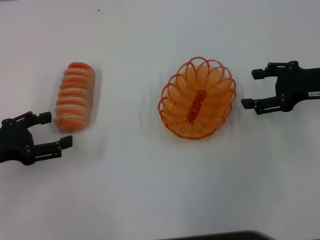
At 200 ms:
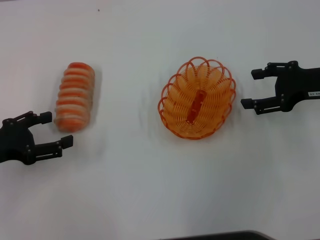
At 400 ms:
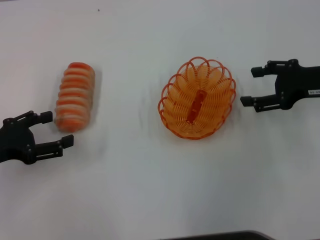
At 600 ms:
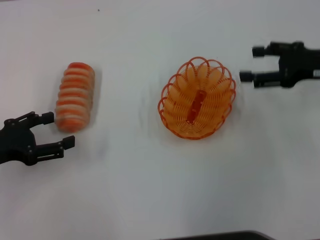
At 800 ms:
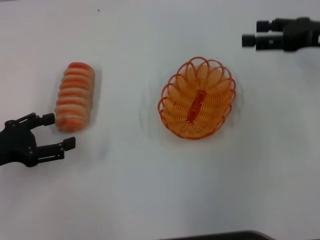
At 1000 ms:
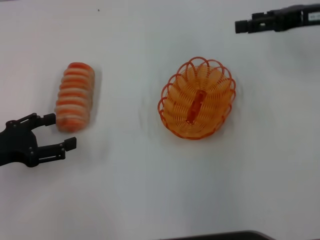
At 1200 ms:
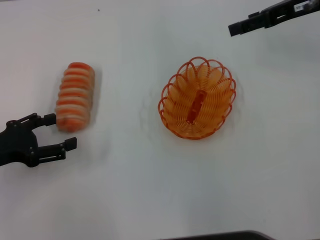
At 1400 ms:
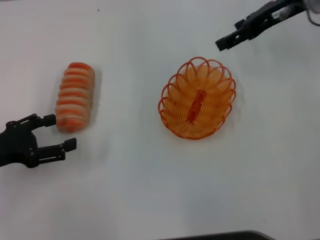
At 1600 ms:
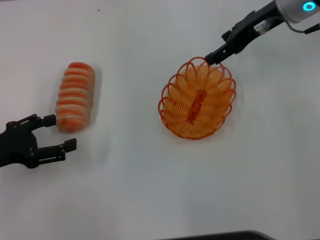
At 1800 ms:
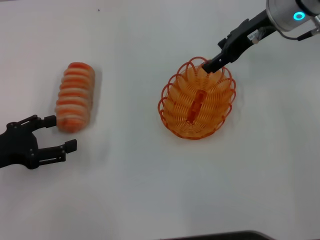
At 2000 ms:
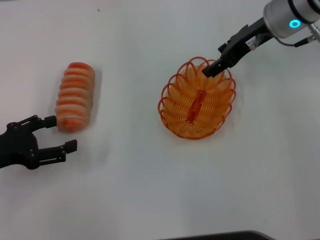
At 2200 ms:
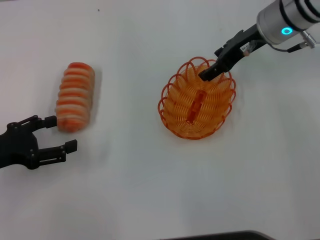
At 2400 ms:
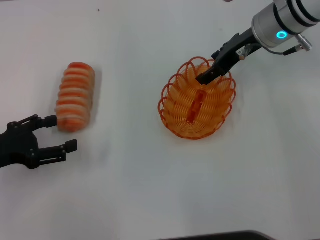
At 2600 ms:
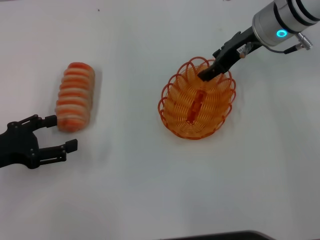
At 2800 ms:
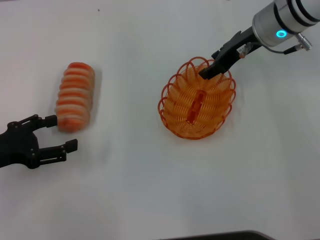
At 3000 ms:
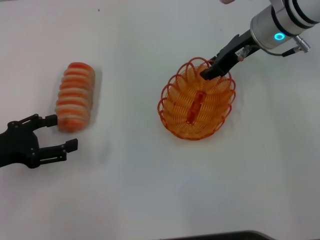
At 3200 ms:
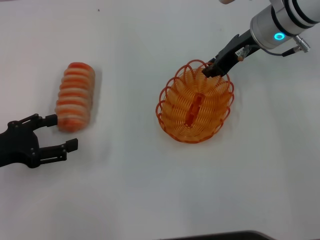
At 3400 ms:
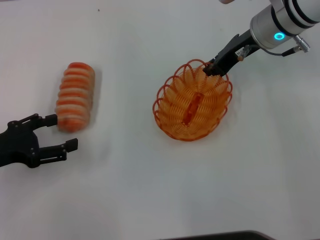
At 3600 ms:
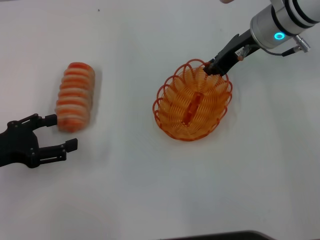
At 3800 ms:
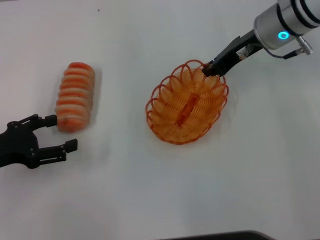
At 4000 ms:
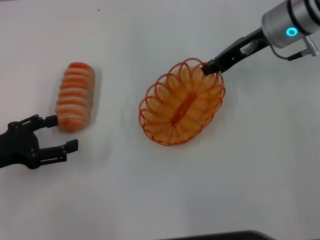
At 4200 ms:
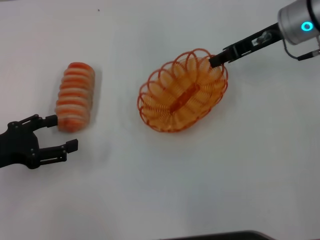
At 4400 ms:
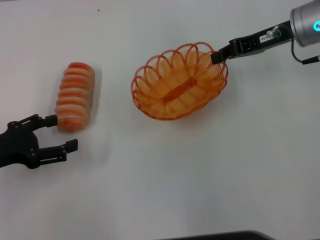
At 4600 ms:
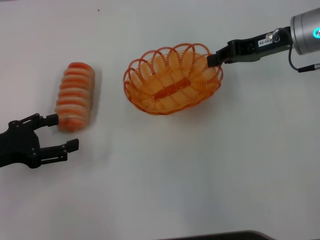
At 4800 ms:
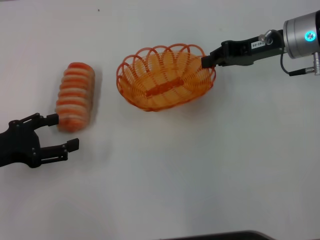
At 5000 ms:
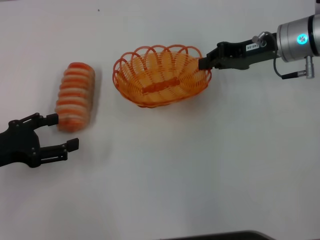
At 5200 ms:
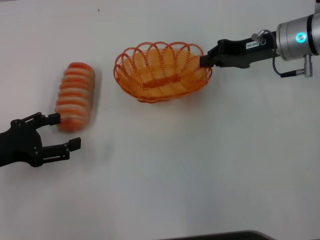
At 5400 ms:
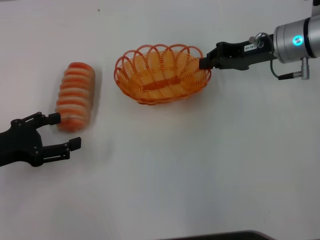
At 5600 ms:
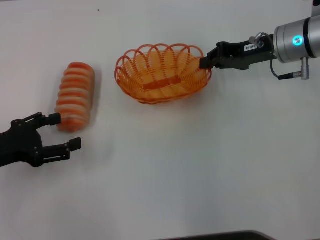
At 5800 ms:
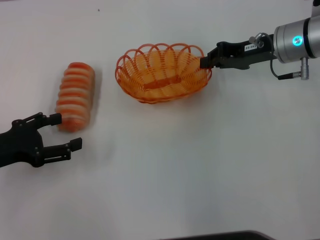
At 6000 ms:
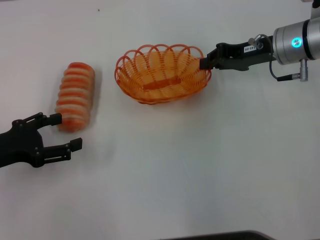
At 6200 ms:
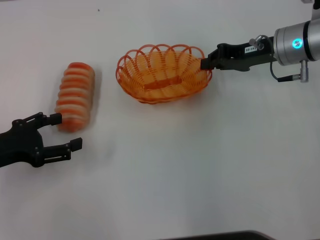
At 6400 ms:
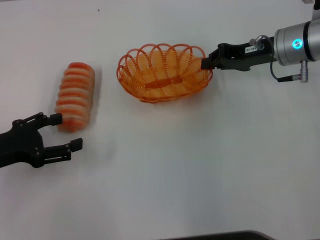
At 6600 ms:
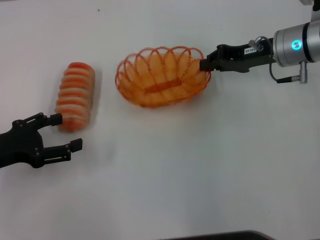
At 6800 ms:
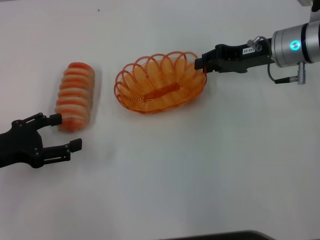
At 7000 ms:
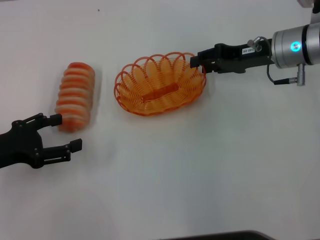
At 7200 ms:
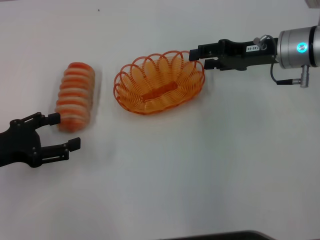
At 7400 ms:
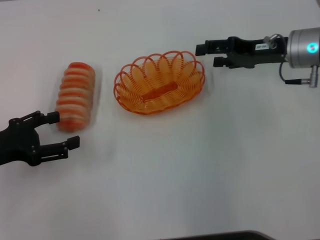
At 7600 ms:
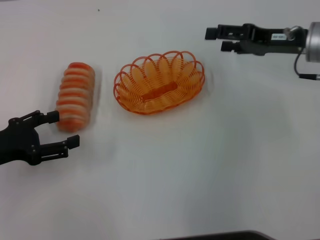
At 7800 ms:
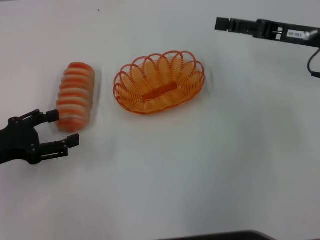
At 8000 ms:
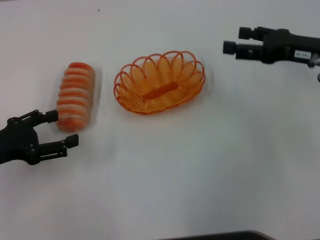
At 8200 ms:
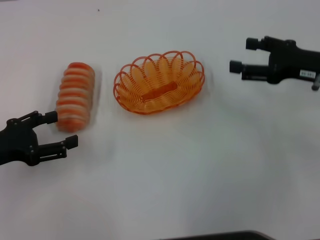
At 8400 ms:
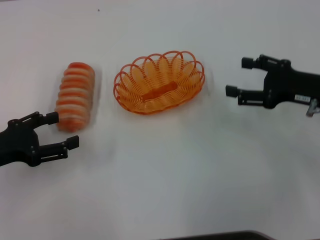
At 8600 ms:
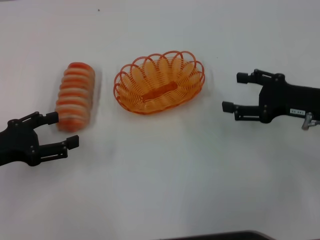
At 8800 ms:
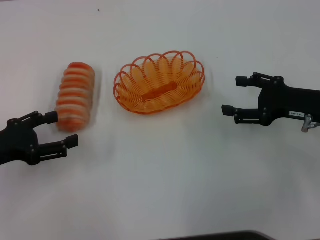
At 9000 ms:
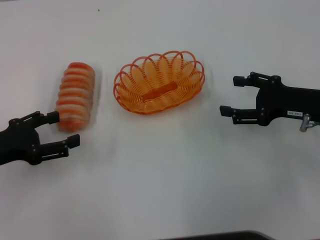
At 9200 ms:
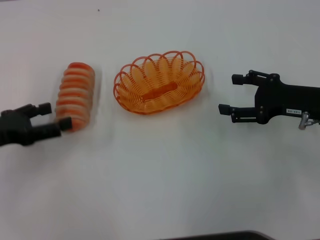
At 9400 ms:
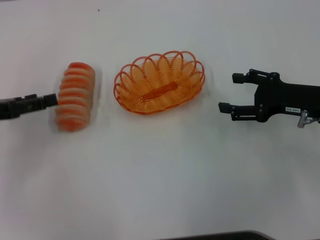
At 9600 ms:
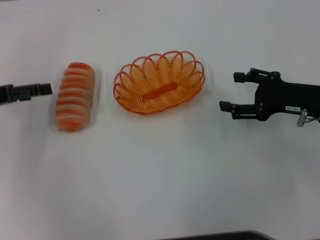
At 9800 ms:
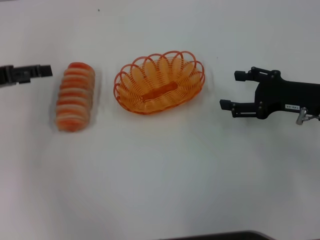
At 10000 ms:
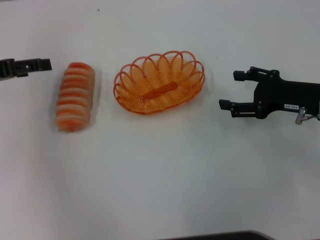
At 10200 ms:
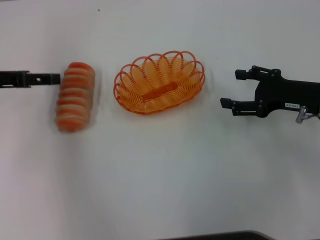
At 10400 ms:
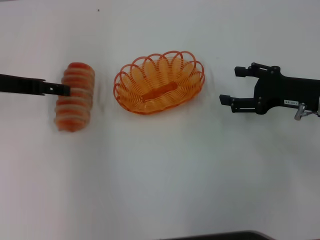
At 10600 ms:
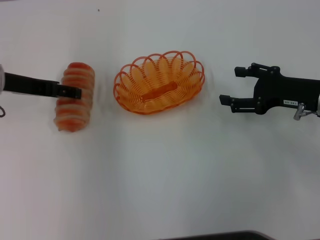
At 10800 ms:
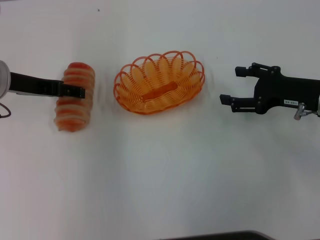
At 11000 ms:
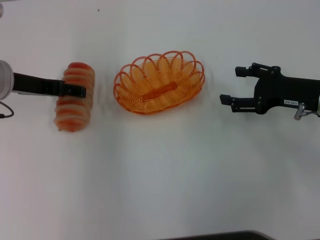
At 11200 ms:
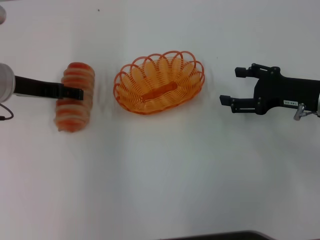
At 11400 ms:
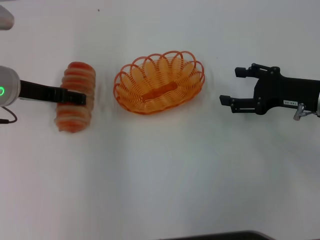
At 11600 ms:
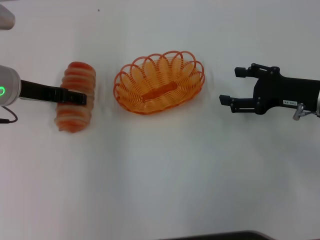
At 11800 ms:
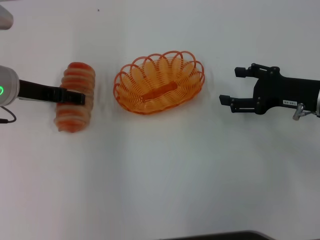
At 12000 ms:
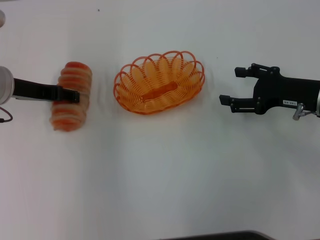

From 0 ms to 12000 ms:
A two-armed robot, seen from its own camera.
Step, from 0 ms to 4200 ms: Pick up the basket with the right gripper.
Step, from 4400 ms to 7400 ms: Place the basket in the center of view with the right gripper.
From 0 ms to 1600 ms: The right gripper shifts approximately 15 cm forward, to the left and upward.
From 1600 ms to 3000 ms: The right gripper ends up some 5 cm from where it was.
From 3000 ms to 4400 ms: The right gripper heads to the right, covering approximately 5 cm, and closes up.
From 4400 ms to 6000 ms: There are only small adjustments of the grippers.
From 6000 ms to 7600 ms: The right gripper opens.
From 7600 ms to 9000 ms: The right gripper heads backward and downward, covering approximately 10 cm.
From 9000 ms to 10400 ms: The left gripper shifts roughly 10 cm forward and upward.
From 10400 ms to 12000 ms: The grippers move only a little.

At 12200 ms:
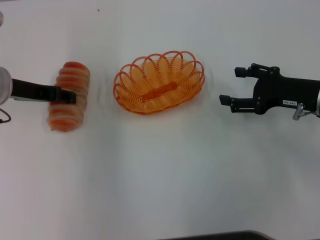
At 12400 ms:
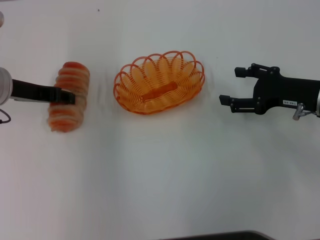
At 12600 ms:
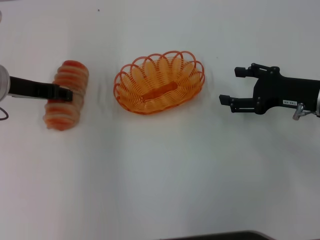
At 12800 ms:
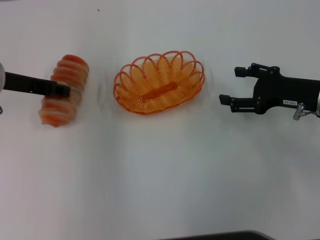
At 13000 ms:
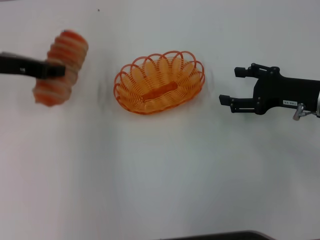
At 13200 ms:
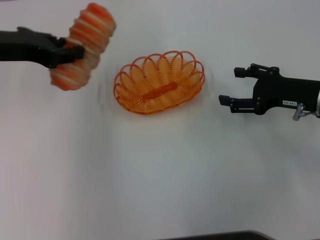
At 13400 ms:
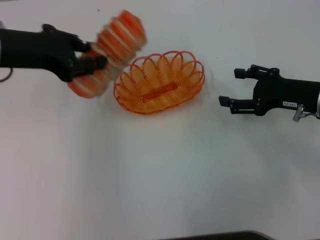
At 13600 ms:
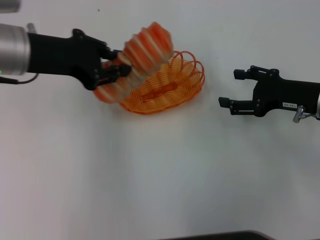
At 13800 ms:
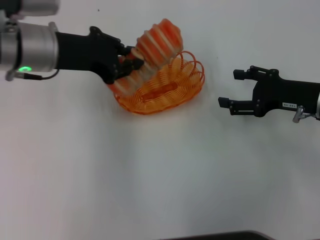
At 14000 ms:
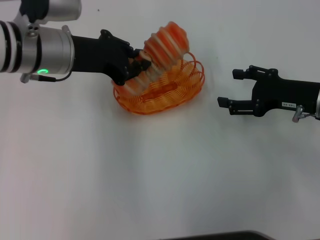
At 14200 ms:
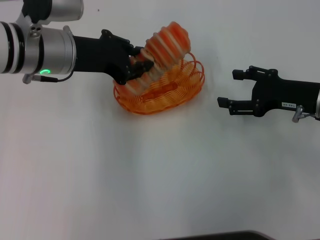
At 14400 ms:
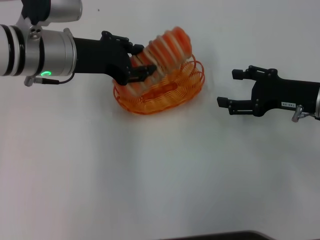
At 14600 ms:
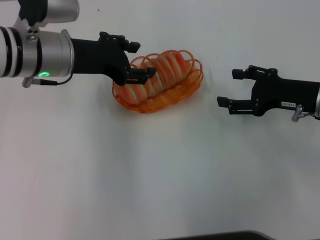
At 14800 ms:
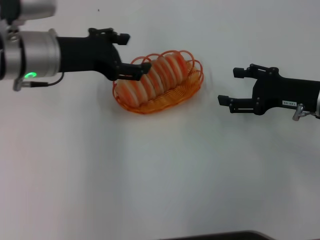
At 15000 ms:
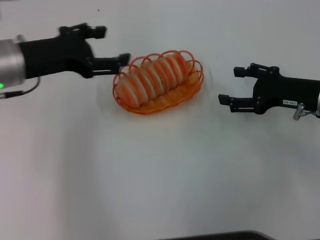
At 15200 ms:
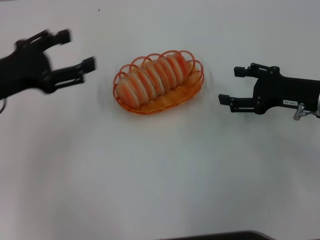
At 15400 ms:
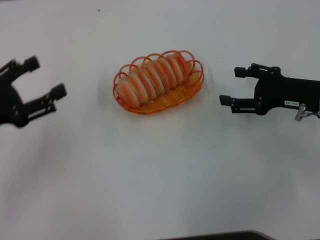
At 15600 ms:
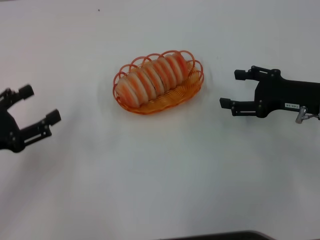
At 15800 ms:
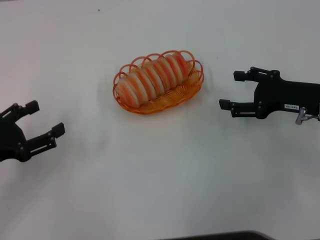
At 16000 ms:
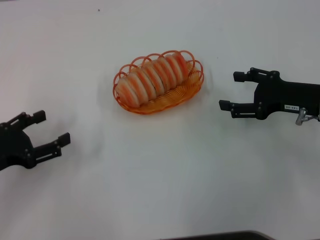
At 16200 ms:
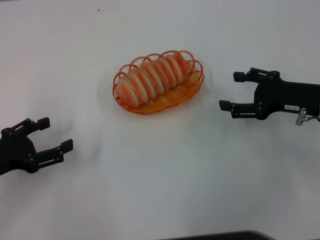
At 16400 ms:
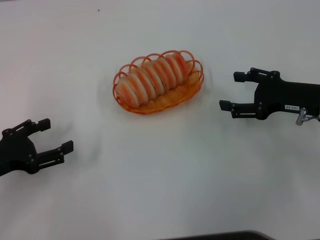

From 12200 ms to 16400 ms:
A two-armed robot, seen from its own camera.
Step, from 13200 ms to 14800 ms: Place the long bread into the basket with the left gripper.
From 12200 ms to 13600 ms: The left gripper travels upward by some 5 cm, and closes.
From 13600 ms to 15000 ms: The left gripper opens its fingers.
From 15000 ms to 16400 ms: The left gripper travels backward, to the left and downward by about 15 cm.
